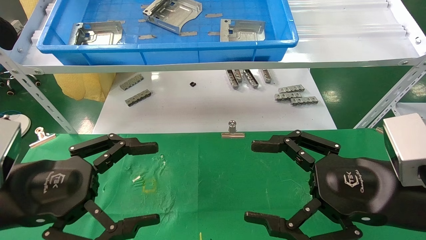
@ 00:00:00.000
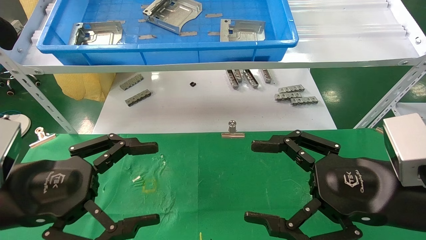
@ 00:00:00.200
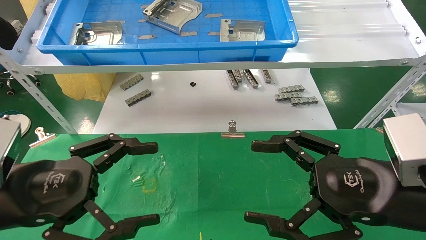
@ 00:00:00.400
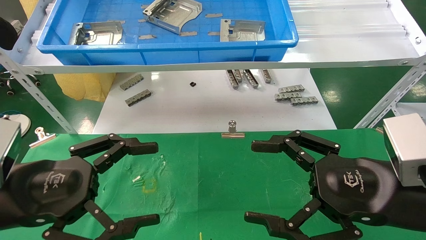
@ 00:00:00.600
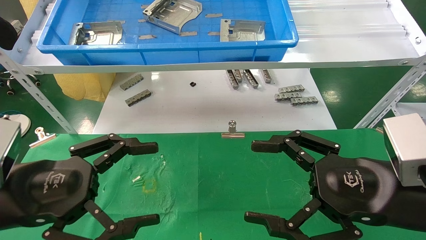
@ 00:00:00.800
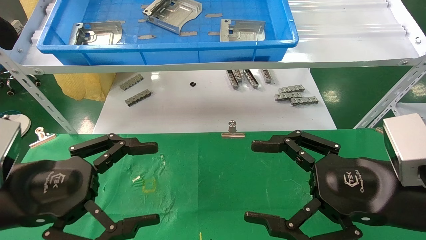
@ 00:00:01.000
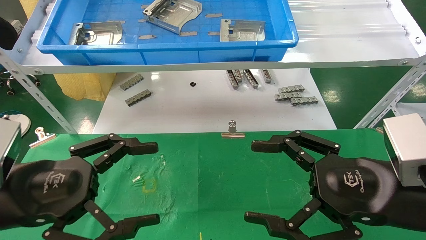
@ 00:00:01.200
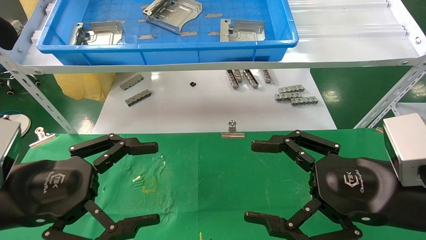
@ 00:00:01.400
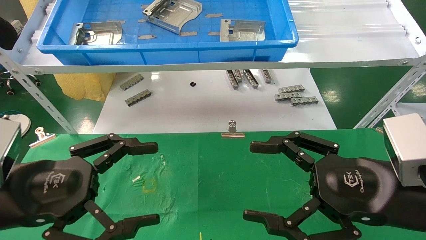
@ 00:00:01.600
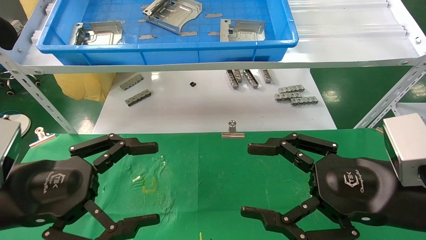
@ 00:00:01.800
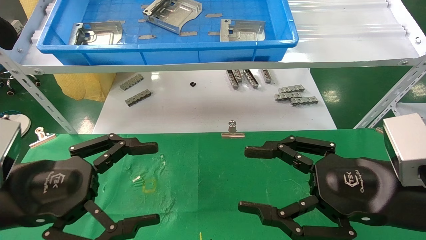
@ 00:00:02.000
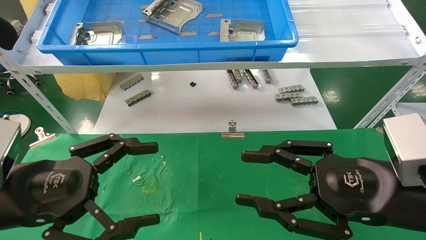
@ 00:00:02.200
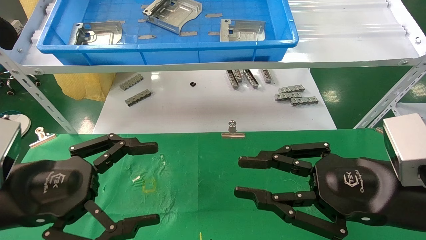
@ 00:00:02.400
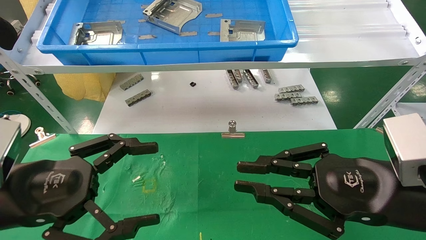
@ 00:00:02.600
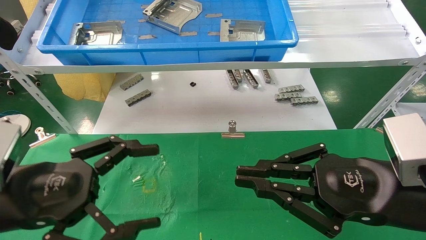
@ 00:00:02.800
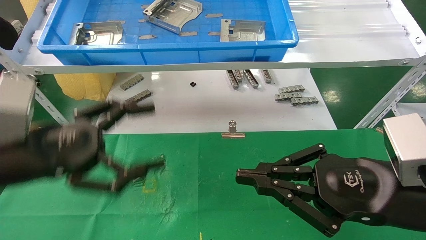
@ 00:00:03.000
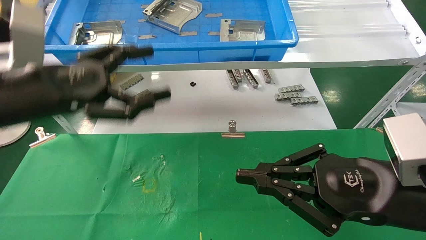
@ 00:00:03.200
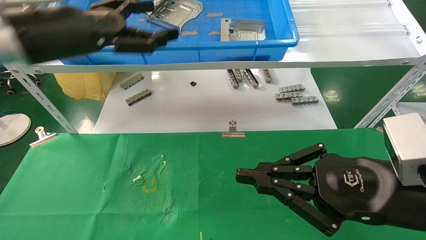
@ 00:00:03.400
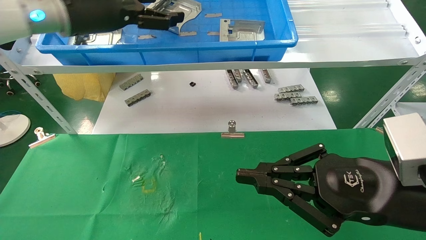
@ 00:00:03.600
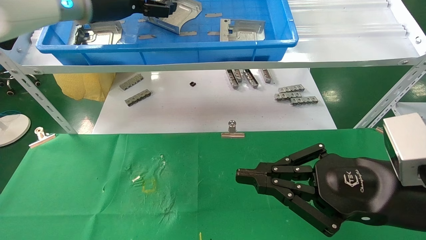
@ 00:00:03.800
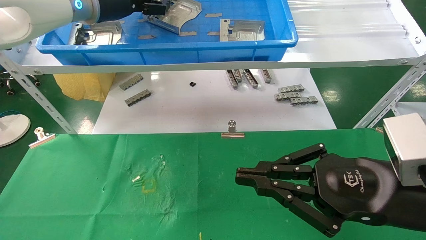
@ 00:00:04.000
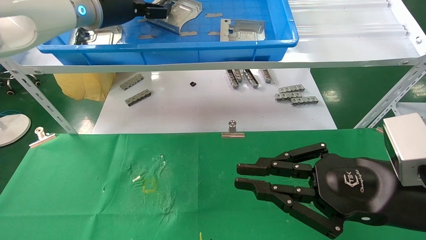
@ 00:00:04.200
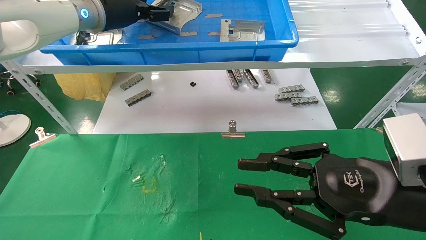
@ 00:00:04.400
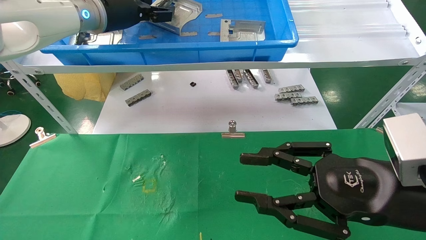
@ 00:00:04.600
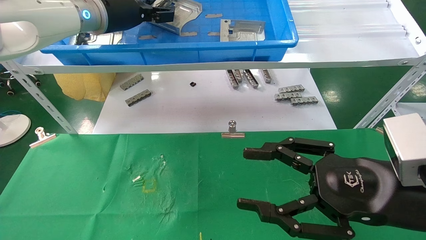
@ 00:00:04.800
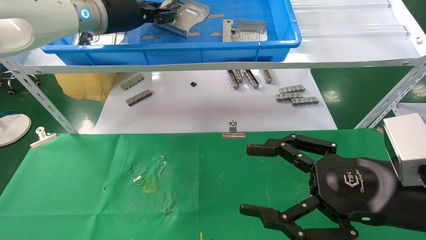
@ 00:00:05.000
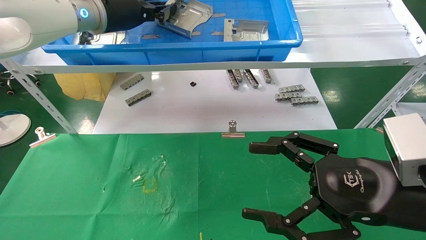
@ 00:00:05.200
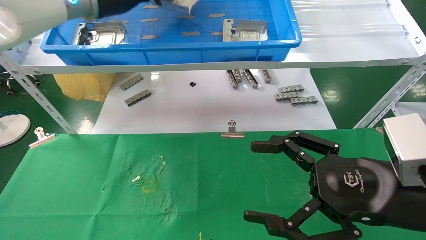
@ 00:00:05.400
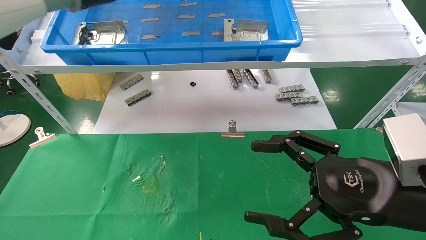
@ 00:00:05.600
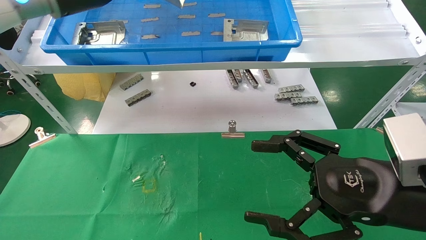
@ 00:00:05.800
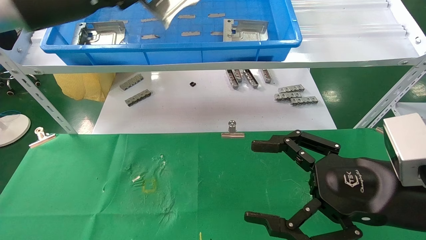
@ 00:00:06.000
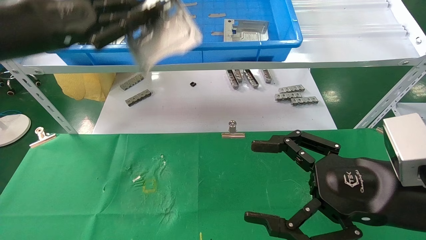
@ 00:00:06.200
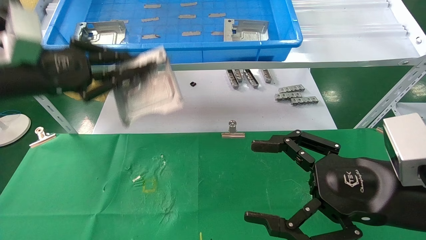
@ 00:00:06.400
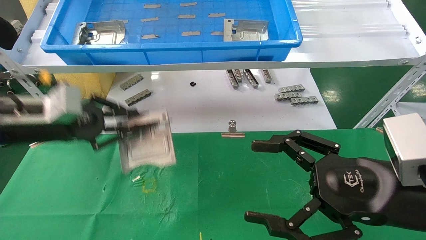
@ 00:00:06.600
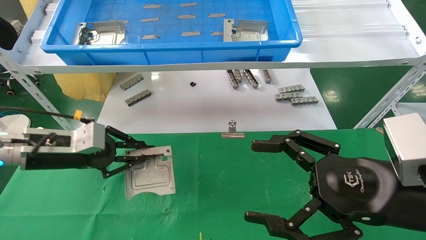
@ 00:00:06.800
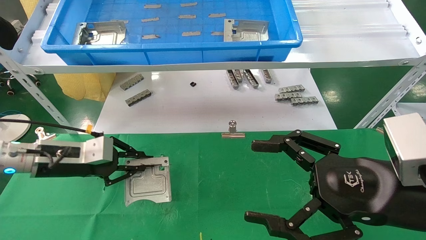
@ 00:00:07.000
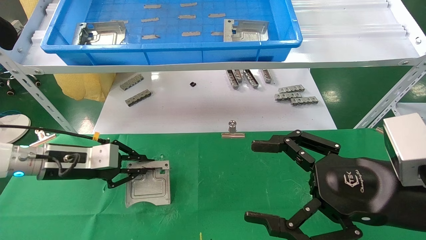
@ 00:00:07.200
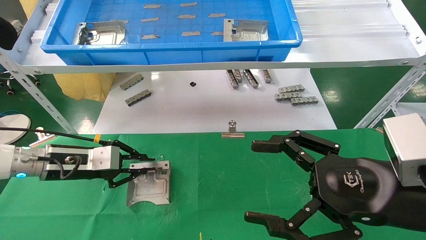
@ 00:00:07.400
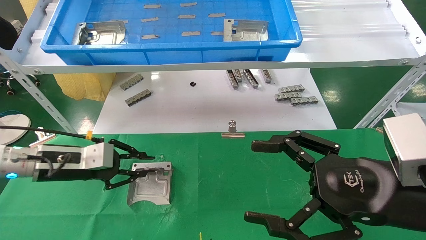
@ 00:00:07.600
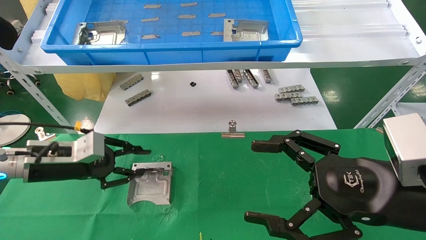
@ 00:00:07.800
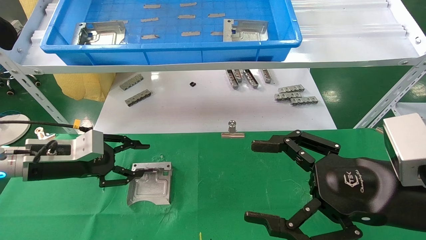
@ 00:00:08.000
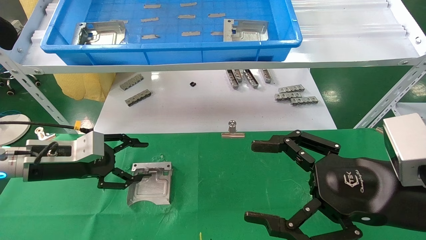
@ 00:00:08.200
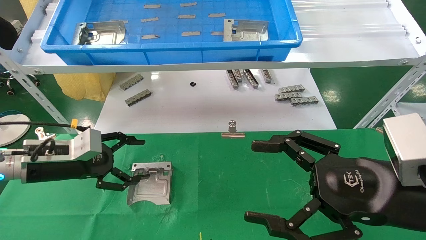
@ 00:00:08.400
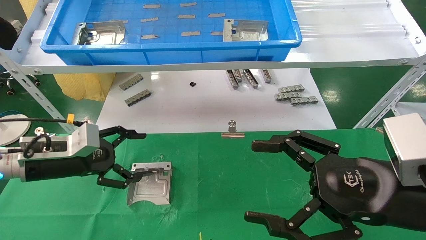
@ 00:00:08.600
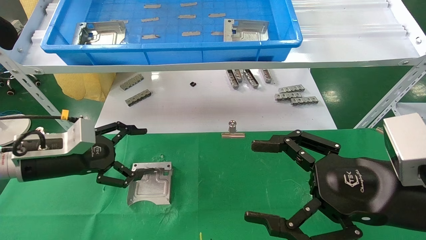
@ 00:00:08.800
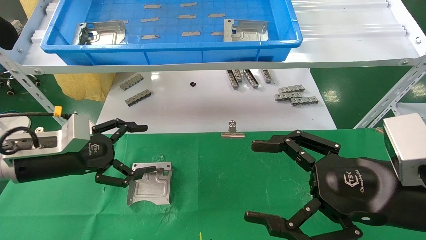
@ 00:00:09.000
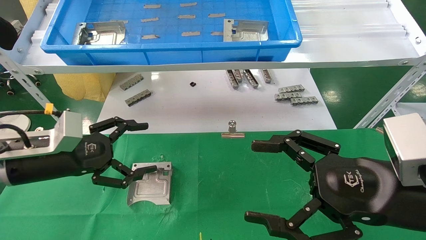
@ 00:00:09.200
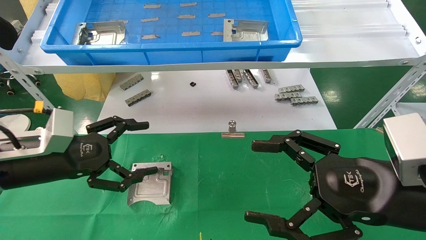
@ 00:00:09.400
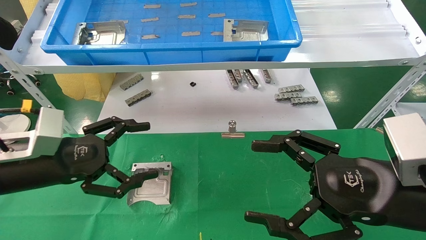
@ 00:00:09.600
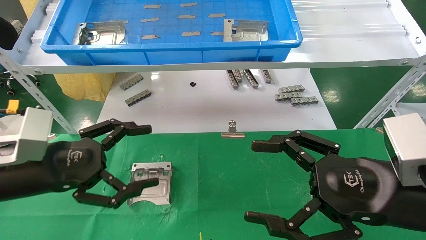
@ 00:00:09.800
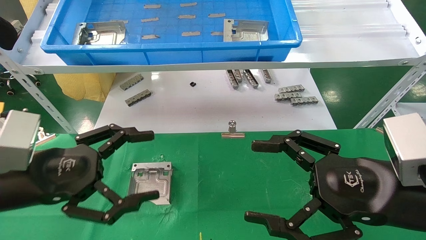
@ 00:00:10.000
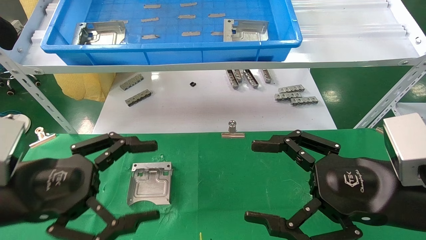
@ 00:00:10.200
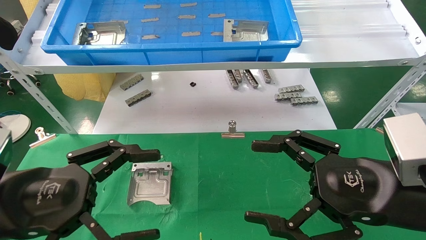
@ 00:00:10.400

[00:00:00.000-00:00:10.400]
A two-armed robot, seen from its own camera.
Task of the whole recording: use the mechanical arm to pick up the parts and place them on the table.
Step, 00:00:03.000 to 00:00:05.200: Pick up the hard drive bracket from the feeding area.
Step, 00:00:05.400 to 00:00:07.800: Place the hard drive bracket into the box.
00:00:00.000 to 00:00:01.400: The two grippers keep their place.
00:00:01.400 to 00:00:03.000: The right gripper closes up, while the left gripper changes place by approximately 5 cm.
00:00:03.000 to 00:00:04.400: The left gripper heads forward and upward, covering about 25 cm.
00:00:04.400 to 00:00:06.000: The left gripper is displaced backward and to the left by some 10 cm, and closes up. The right gripper opens its fingers.
00:00:06.000 to 00:00:07.400: The left gripper travels downward by about 25 cm.
00:00:07.400 to 00:00:09.000: The left gripper moves approximately 5 cm, and opens up.
00:00:09.000 to 00:00:10.400: The left gripper shifts some 15 cm backward.
